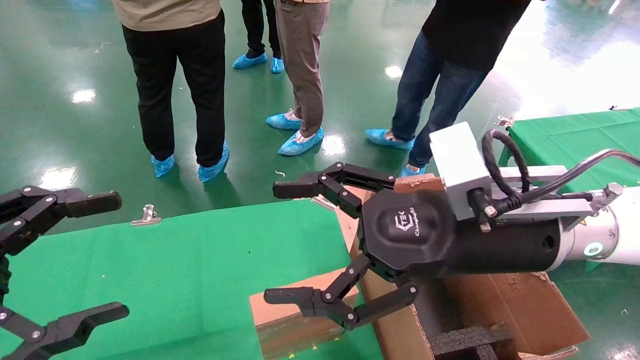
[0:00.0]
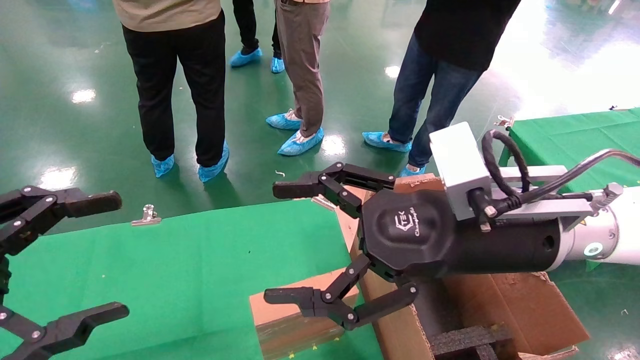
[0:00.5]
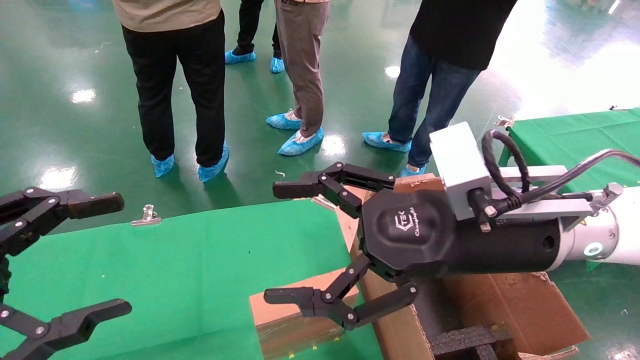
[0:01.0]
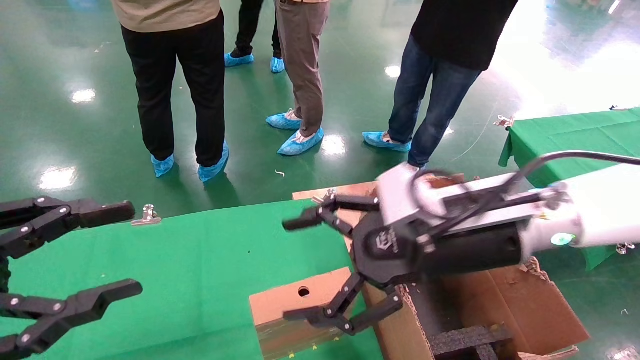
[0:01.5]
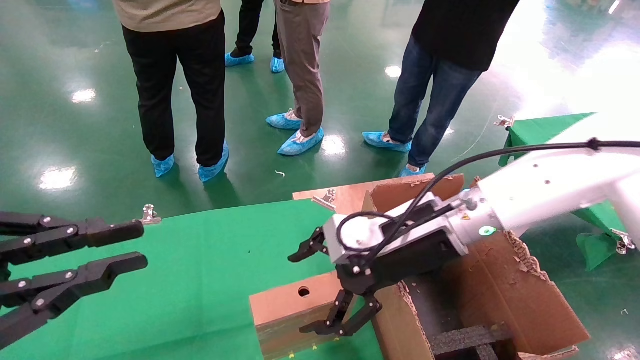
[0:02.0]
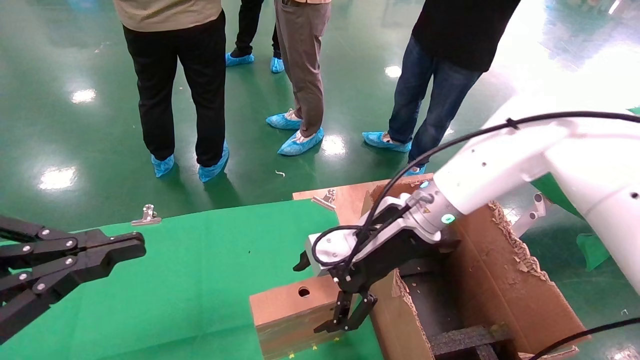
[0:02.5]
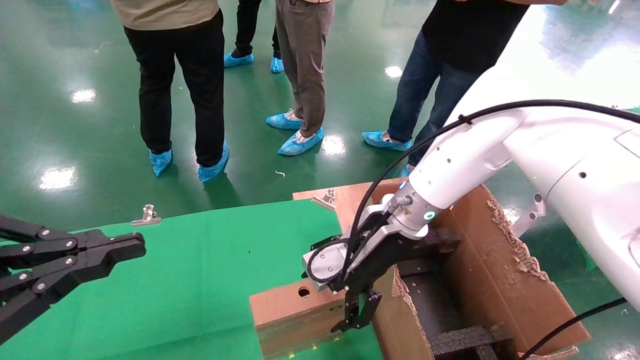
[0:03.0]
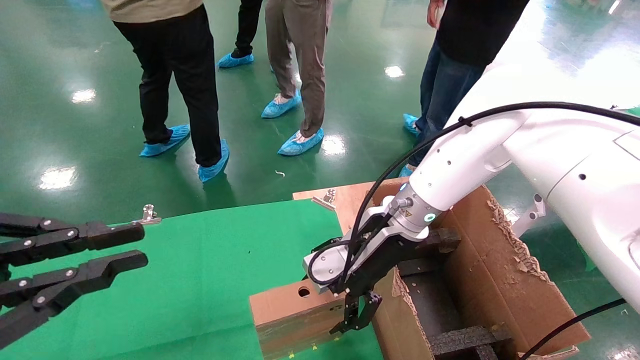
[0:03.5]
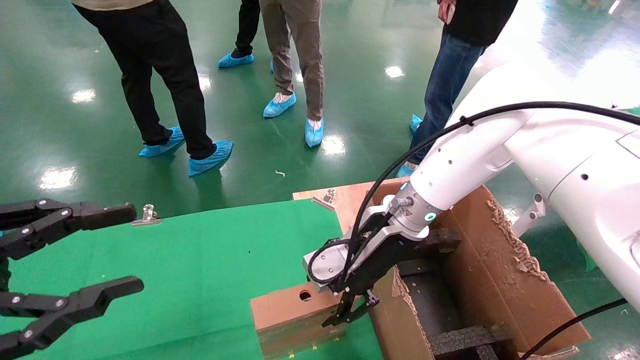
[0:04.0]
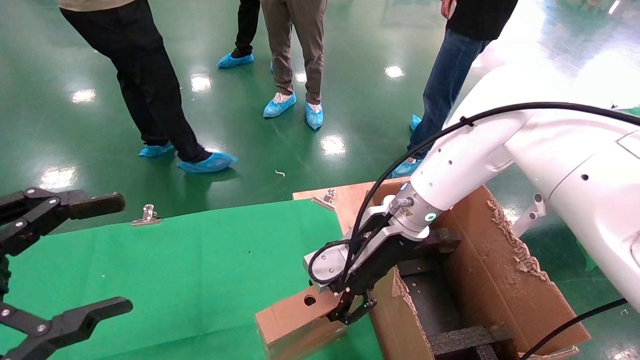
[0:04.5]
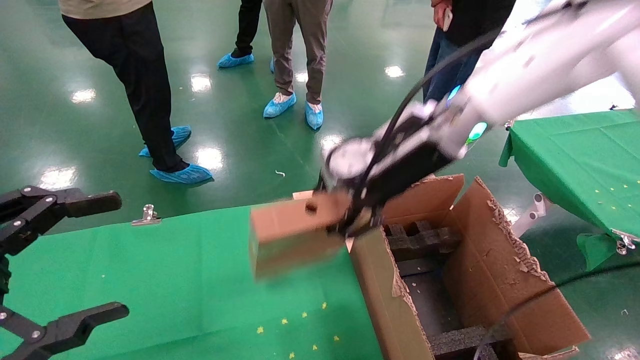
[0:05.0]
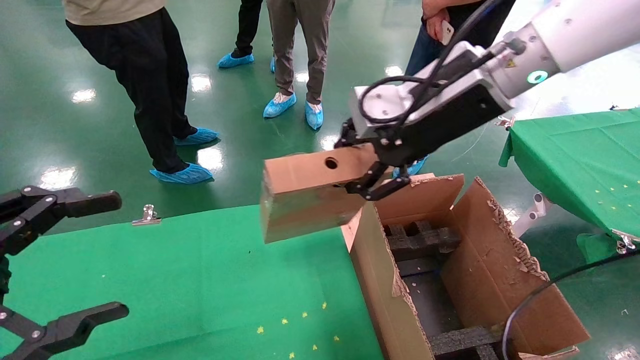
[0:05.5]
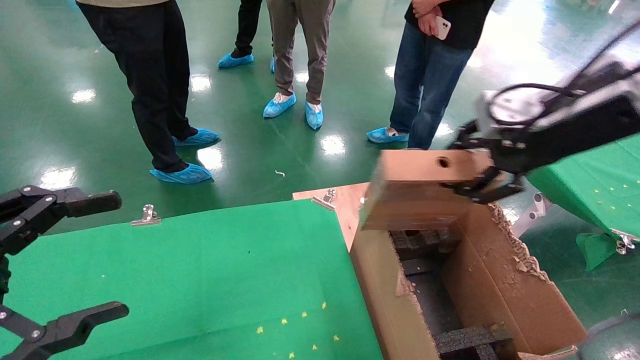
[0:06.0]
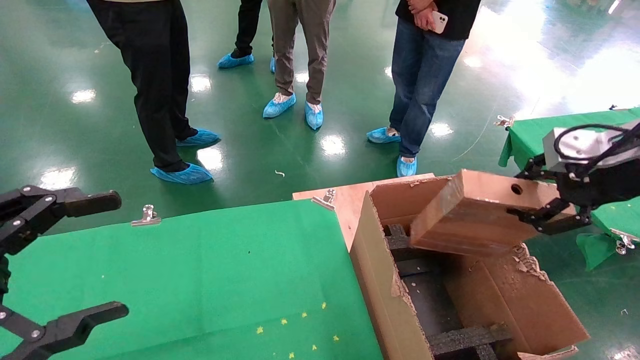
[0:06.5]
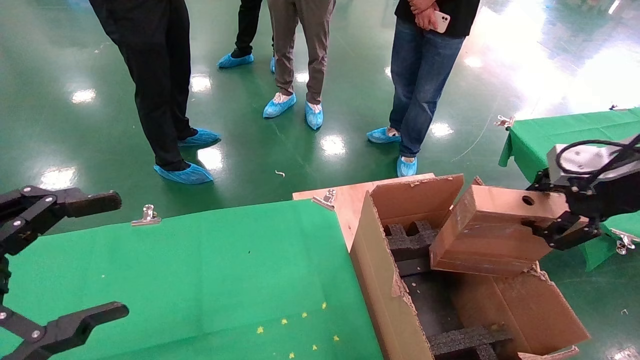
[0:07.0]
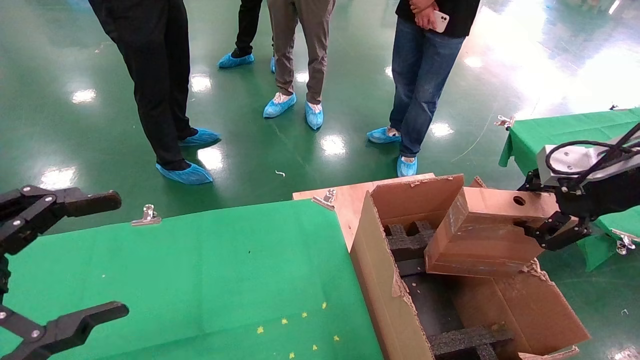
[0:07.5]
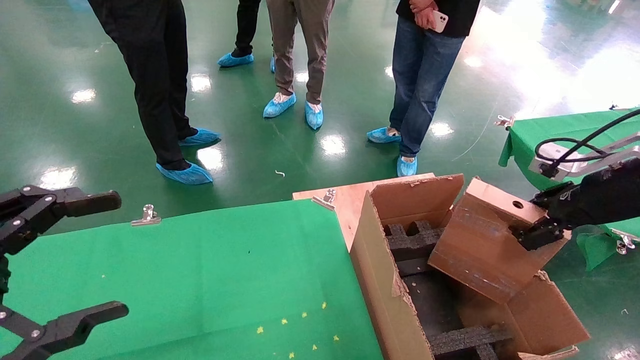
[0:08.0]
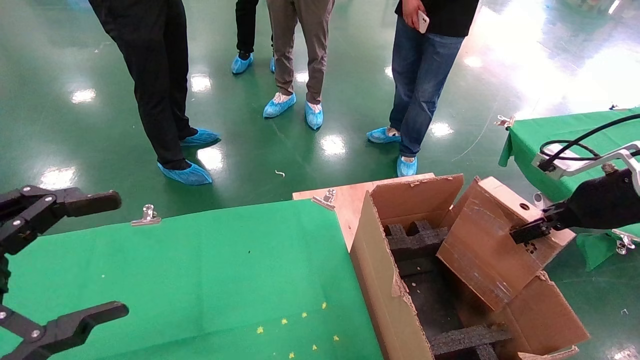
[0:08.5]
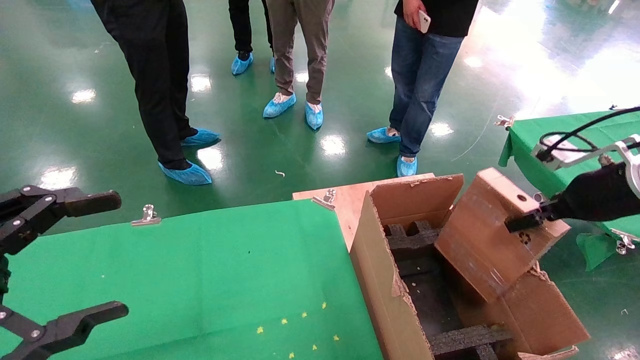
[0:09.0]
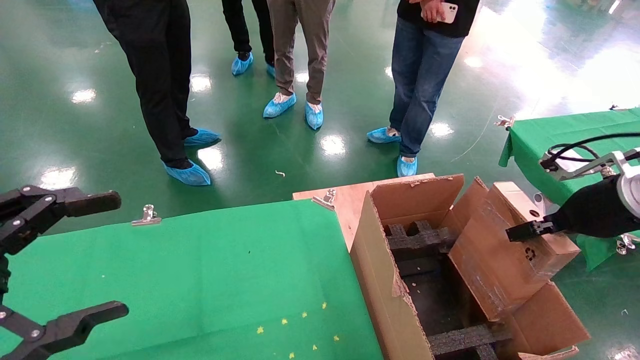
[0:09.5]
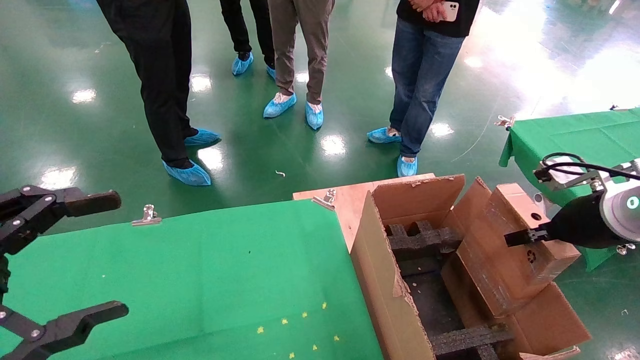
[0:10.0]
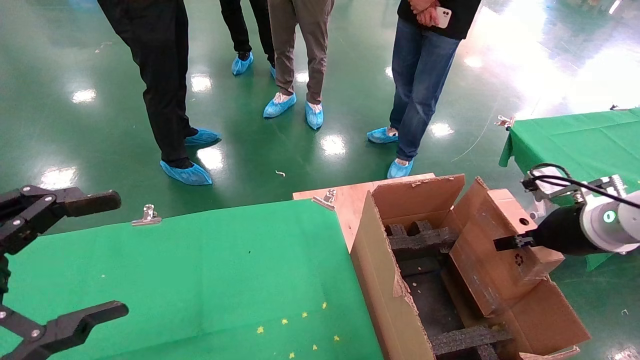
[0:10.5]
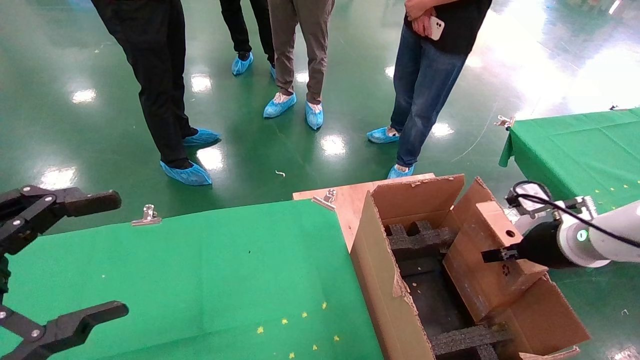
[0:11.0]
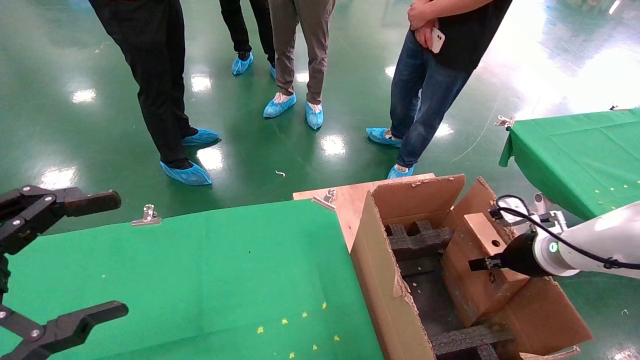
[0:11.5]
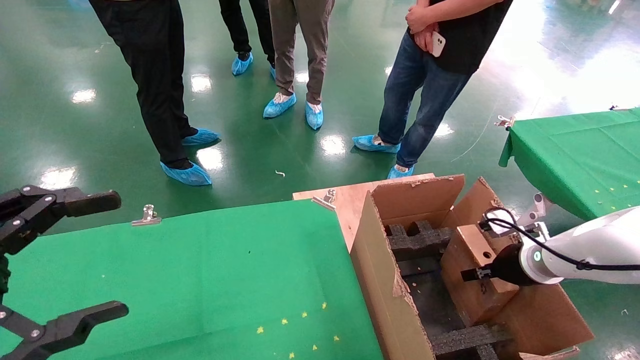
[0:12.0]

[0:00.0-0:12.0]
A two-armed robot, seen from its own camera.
Task of the whole recording: using a robotic arm to pick up a cardboard box and palace it the carton.
Step, 0:01.5 to 0:04.0: Pick up the mouse and the power cord paper box.
0:00.0 to 0:02.0: The right gripper heads forward, covering about 10 cm; the left gripper closes up.
0:02.0 to 0:04.0: The right gripper is displaced forward by about 5 cm, and closes up.
0:04.0 to 0:06.0: The right gripper shifts about 25 cm to the right, upward and backward, and closes; the left gripper opens its fingers.
0:06.0 to 0:08.0: The right gripper is displaced to the right and downward by some 15 cm.
0:08.0 to 0:10.0: The right gripper shifts by about 5 cm.
0:10.0 to 0:12.0: The right gripper moves downward and forward, roughly 15 cm.

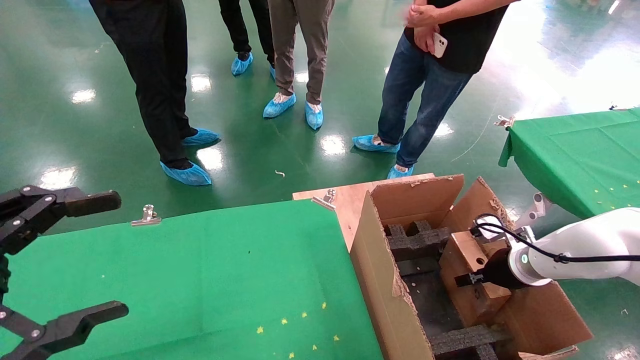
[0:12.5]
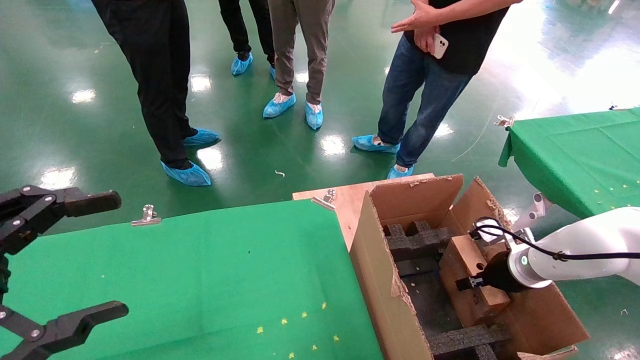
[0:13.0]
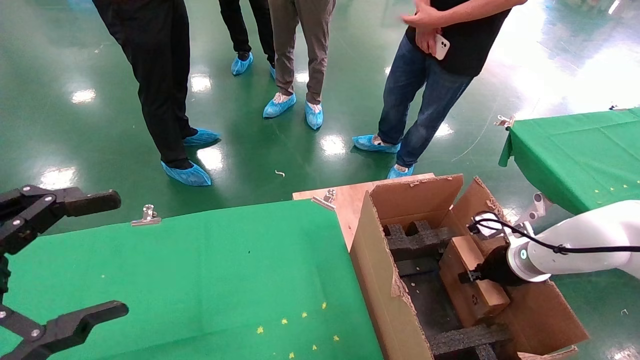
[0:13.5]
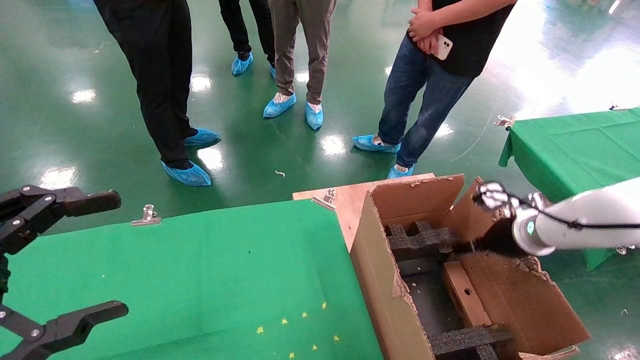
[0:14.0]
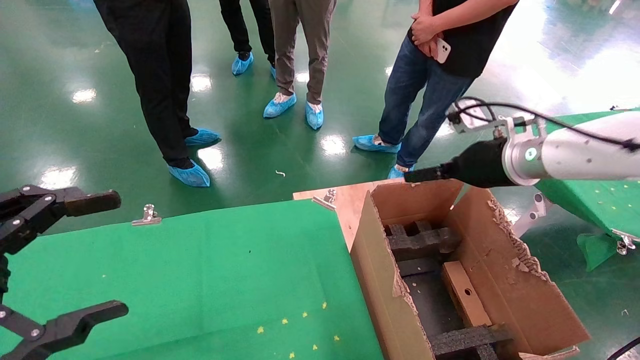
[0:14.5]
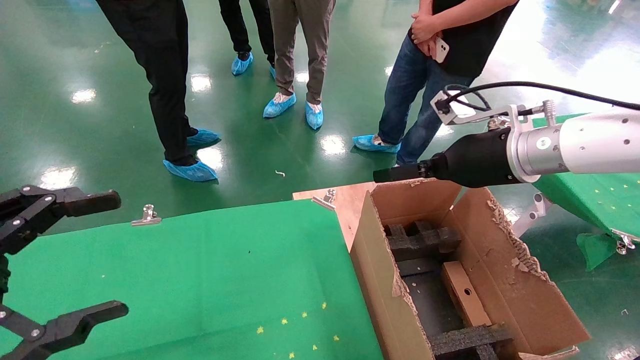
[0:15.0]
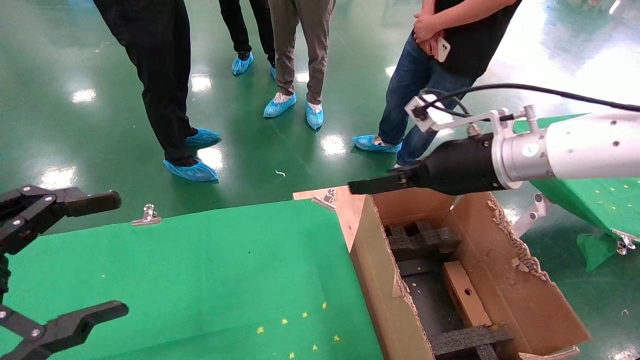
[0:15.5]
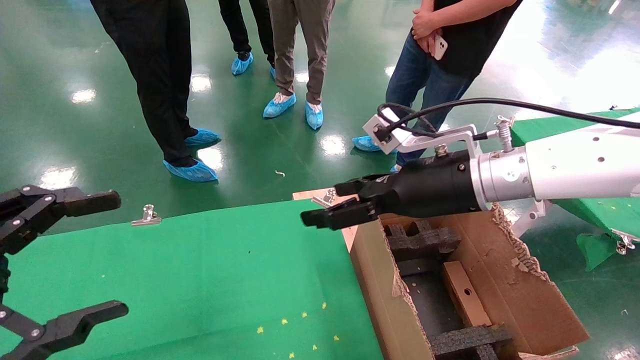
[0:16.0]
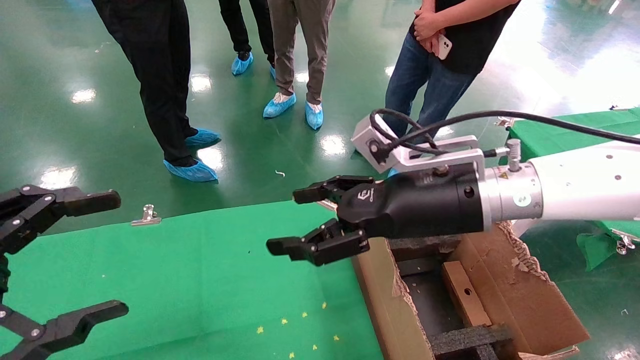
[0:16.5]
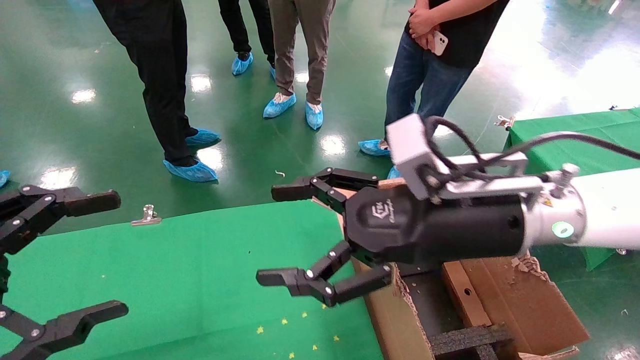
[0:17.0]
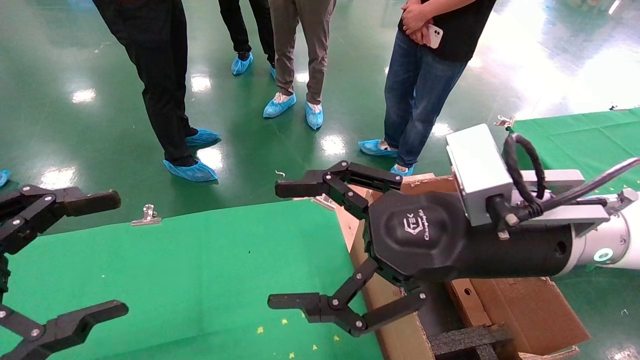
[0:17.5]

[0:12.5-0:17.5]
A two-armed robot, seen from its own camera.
Task of the whole recording: using a robotic arm to pick up a cardboard box and palace it the carton.
0:12.5 to 0:15.0: The right gripper heads upward and to the left, covering about 25 cm, and opens up.
0:15.0 to 0:17.5: The right gripper goes about 15 cm backward and to the left.

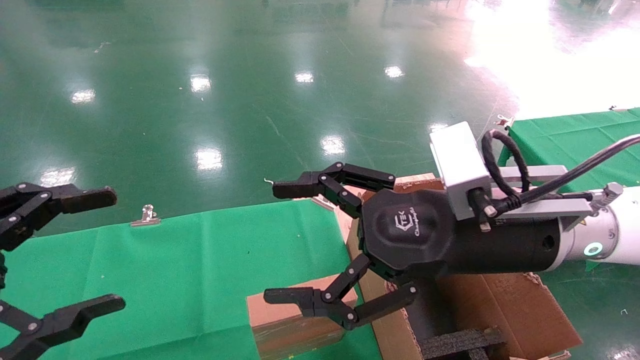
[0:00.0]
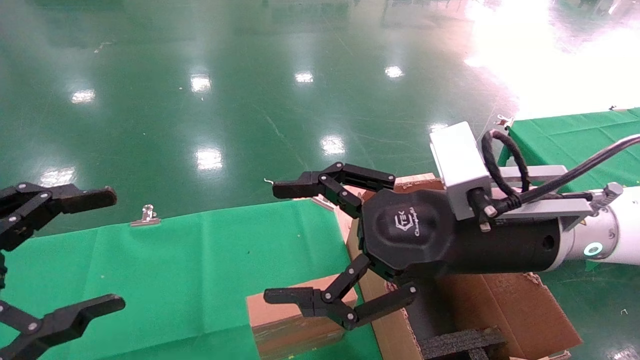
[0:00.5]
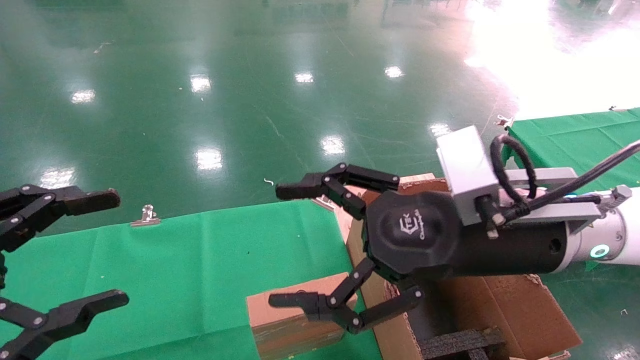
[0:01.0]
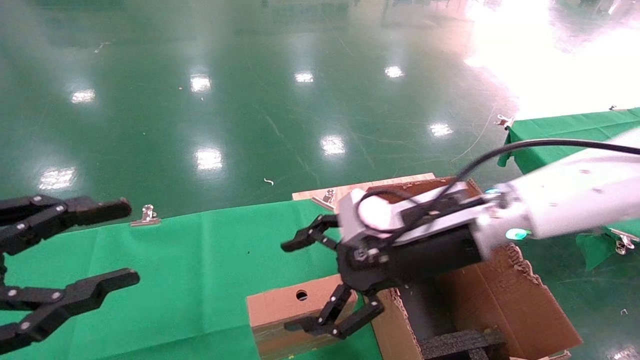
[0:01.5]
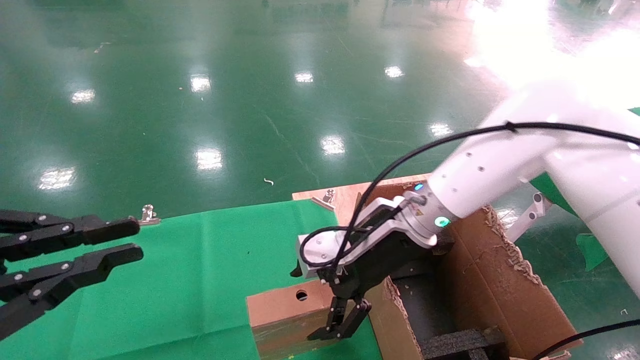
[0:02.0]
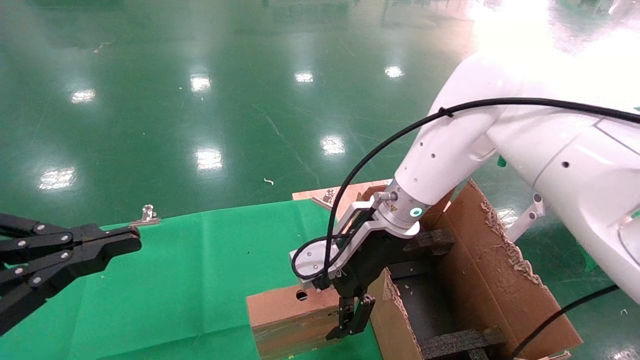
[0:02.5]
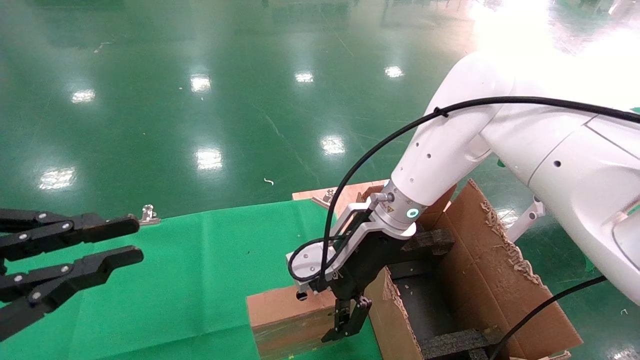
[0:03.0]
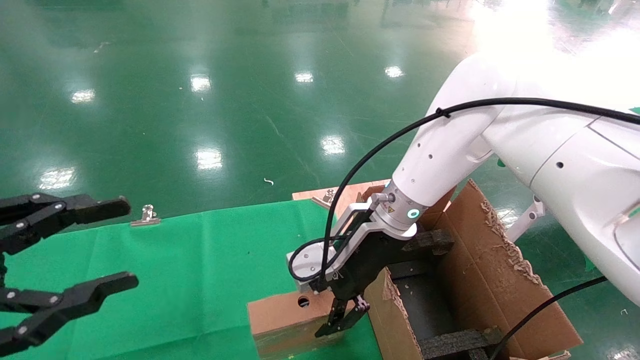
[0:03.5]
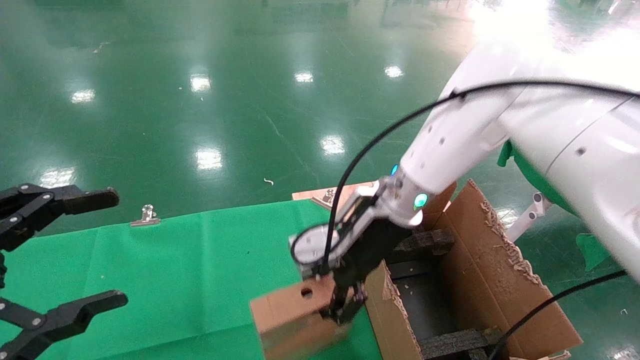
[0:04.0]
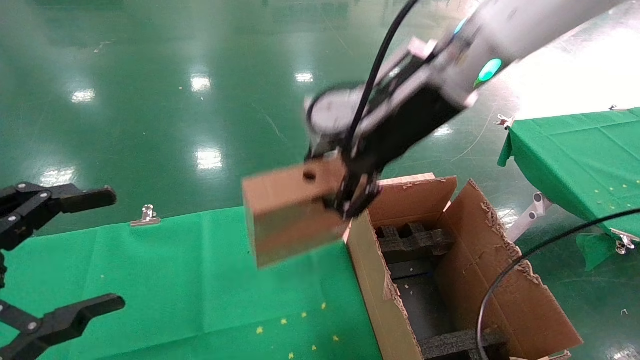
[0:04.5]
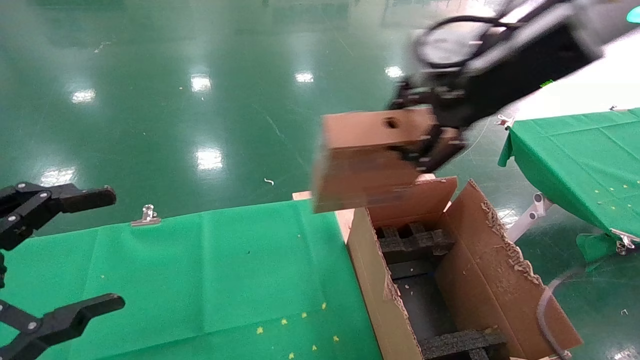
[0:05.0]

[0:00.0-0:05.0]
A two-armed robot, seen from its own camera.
Task of the whole recording: using a robotic arm to pick up a cardboard box and palace it the carton.
Step, 0:01.5 to 0:04.0: Pick up the mouse and the power cord paper box.
0:00.0 to 0:02.5: The right gripper travels forward and to the left by approximately 15 cm. The left gripper closes.
0:02.5 to 0:05.0: The left gripper opens. The right gripper is displaced upward, to the right and backward by about 25 cm, and closes up.
